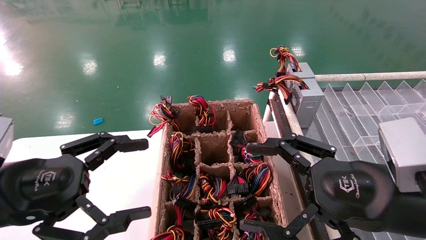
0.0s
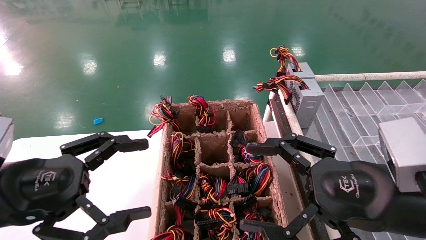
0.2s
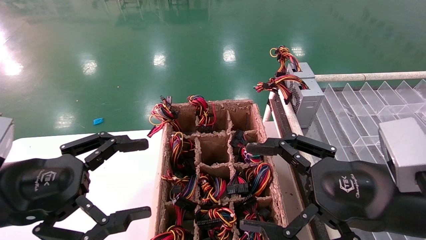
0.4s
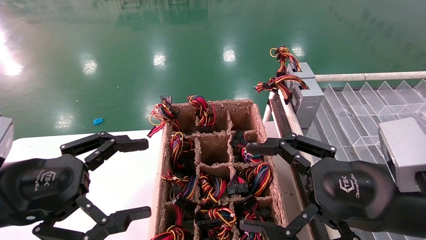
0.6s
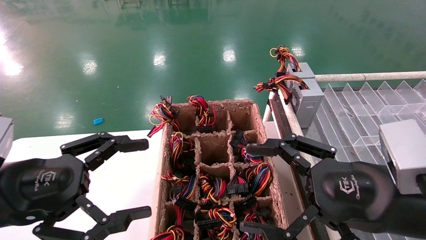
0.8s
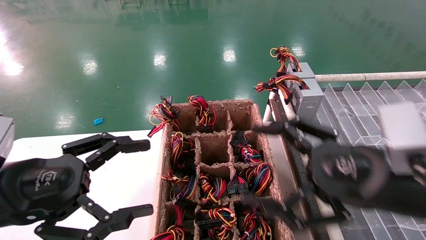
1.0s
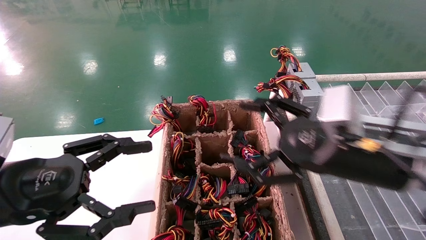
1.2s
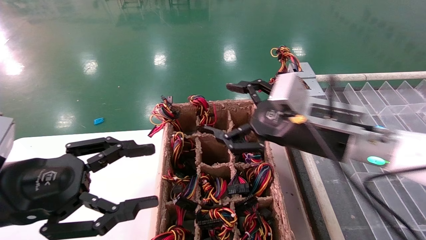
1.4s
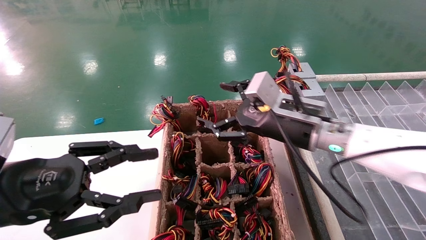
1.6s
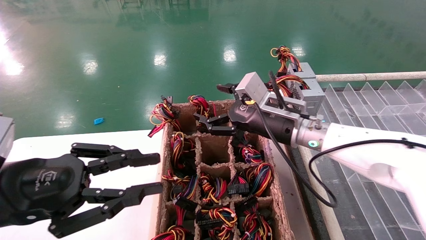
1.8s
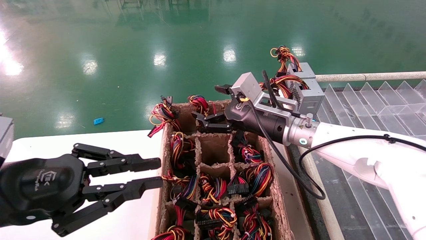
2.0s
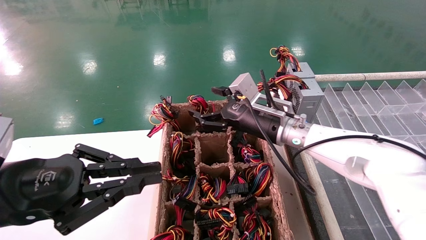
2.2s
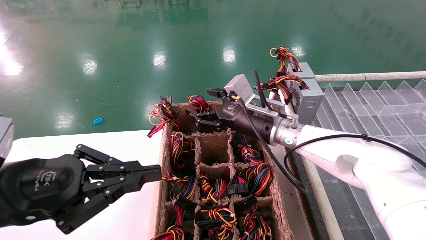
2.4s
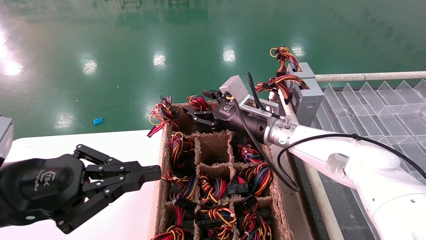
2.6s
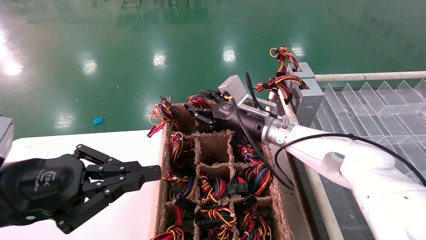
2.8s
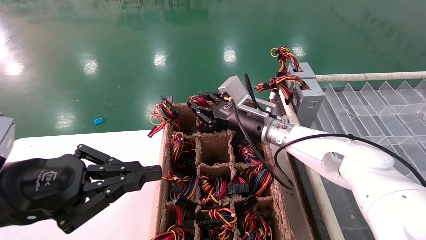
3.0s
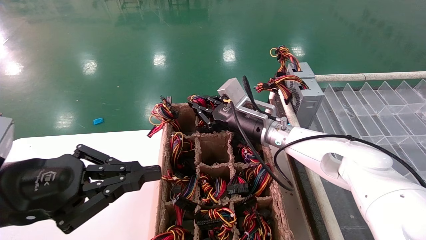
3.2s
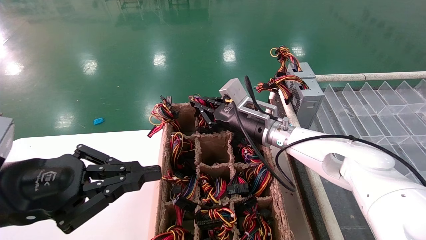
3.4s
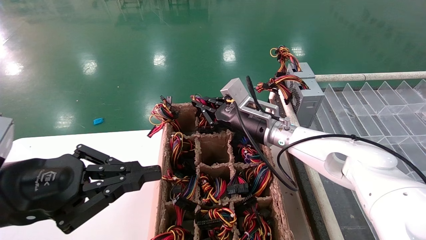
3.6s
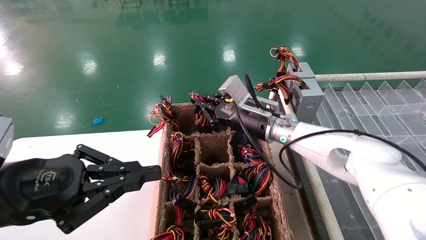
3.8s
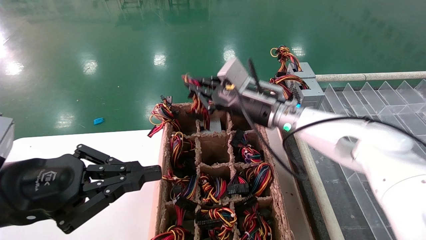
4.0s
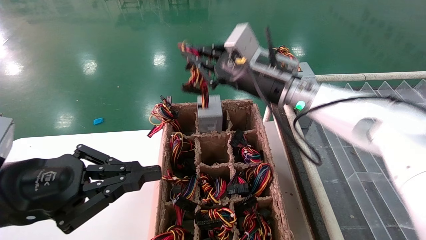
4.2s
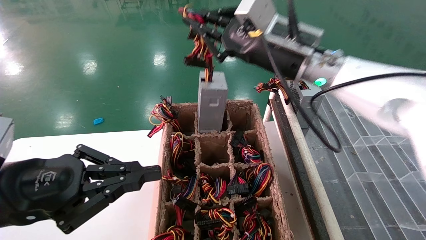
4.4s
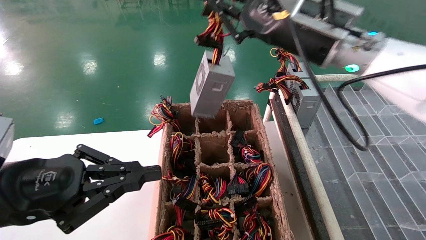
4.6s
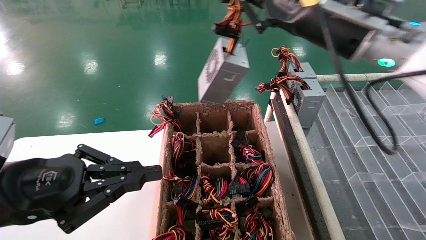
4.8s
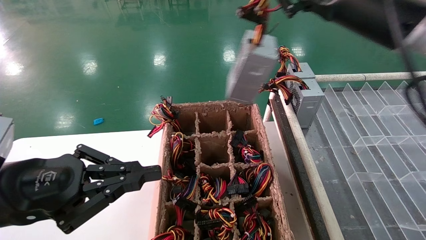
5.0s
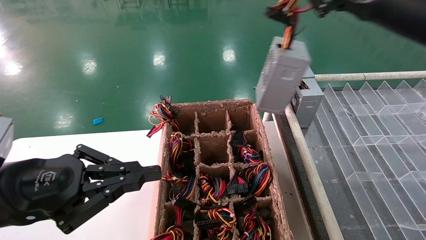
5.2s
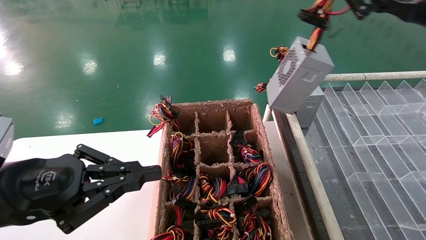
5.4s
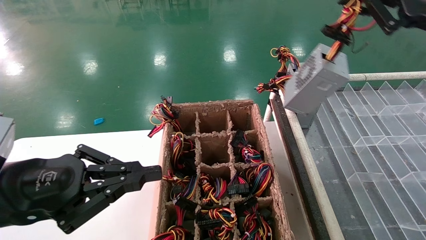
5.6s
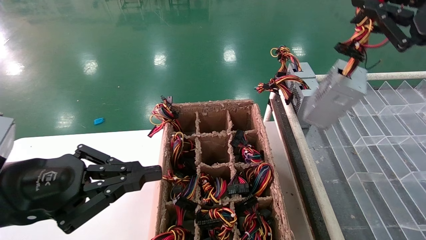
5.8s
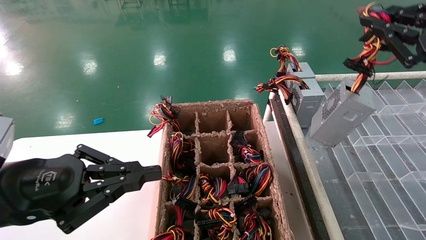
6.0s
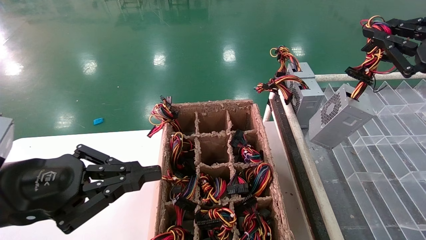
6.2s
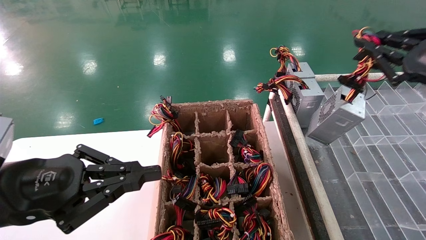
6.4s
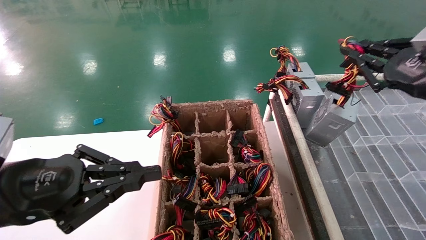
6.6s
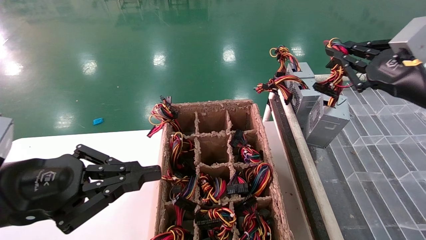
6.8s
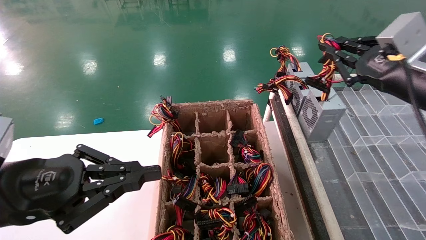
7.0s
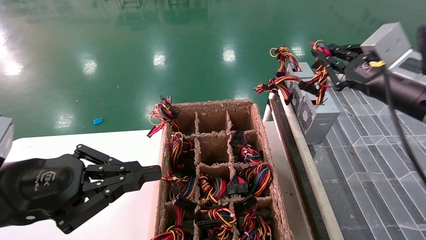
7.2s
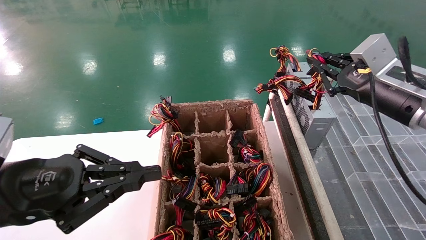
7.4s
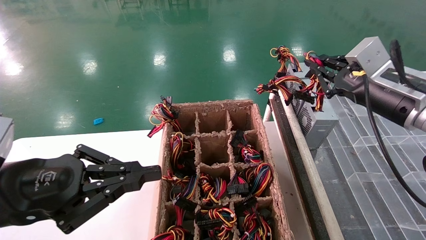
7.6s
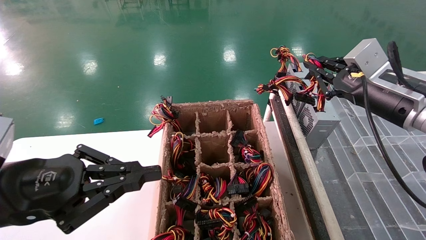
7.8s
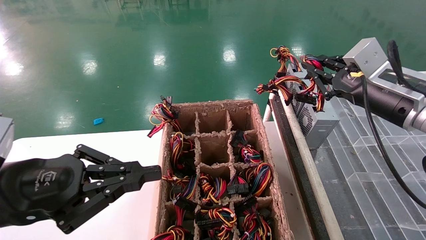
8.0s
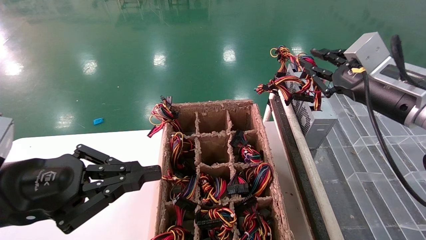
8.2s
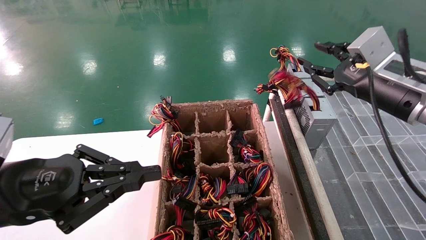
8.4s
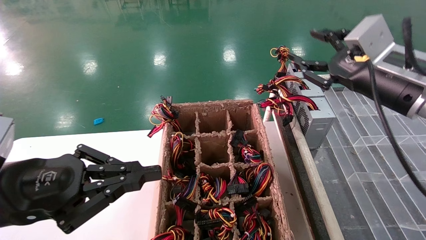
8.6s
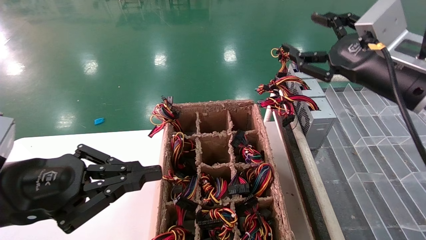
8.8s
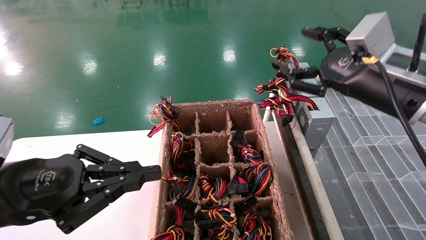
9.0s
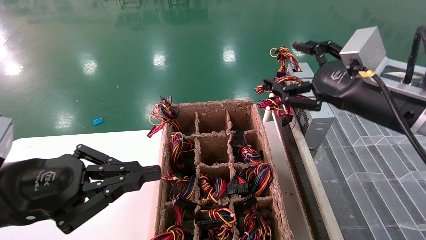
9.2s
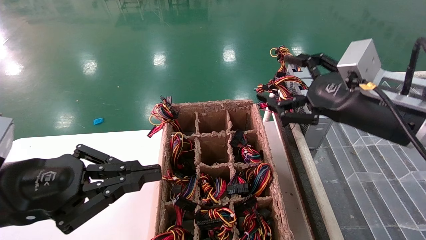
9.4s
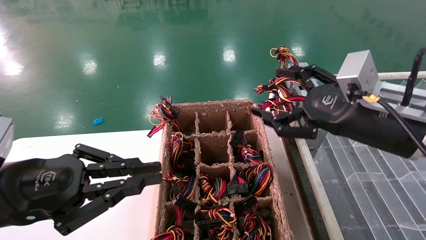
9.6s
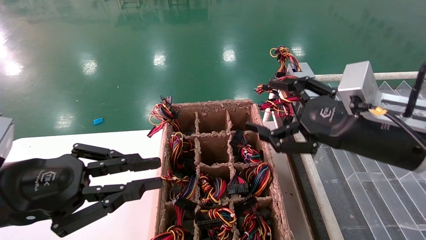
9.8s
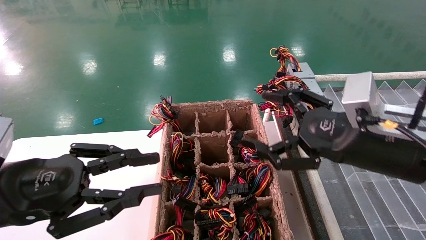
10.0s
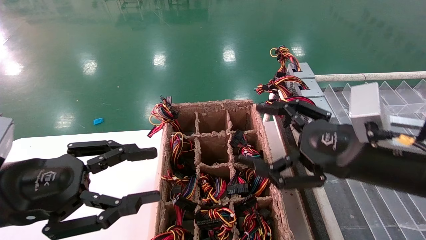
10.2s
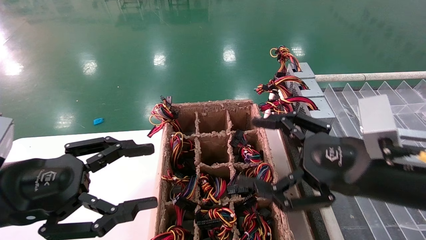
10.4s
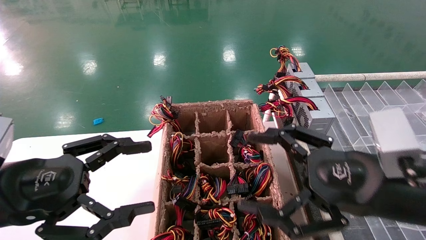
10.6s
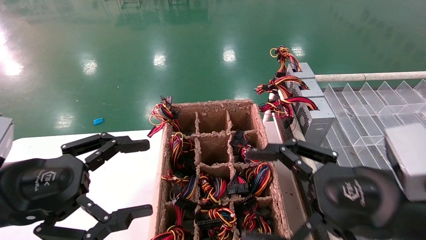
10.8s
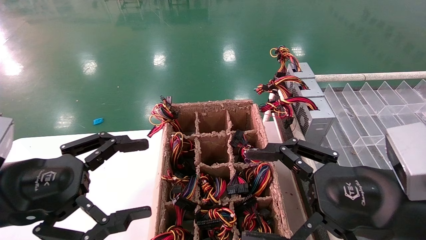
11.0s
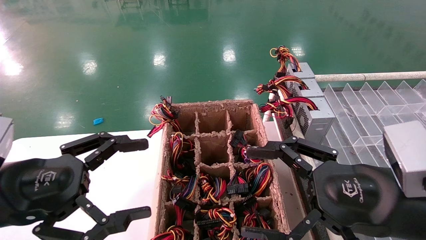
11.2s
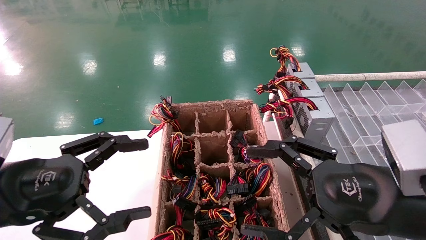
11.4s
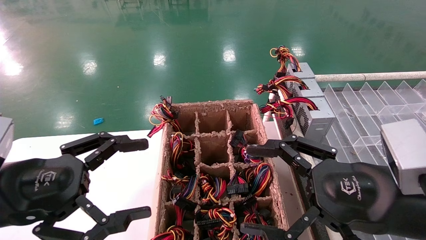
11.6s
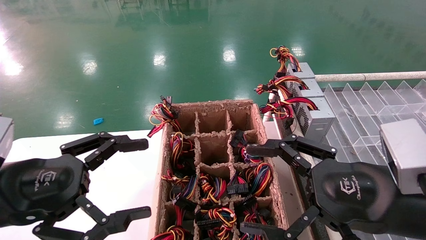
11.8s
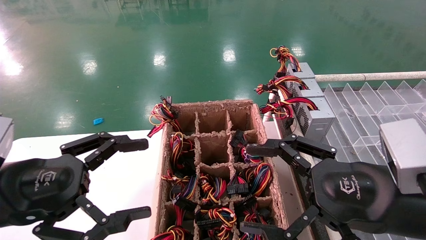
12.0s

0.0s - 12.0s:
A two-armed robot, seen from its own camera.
Step, 1.4s - 3.6s: Grab the main unit power supply from the containment box.
Step, 3.8s - 8.4s: Place the main unit power supply in the designated area.
0.0s - 1.6s: The left gripper closes. Meanwhile the right gripper shifts roughly 20 cm forward and to the left.
1.6s - 3.0s: The right gripper moves forward and to the left, approximately 10 cm, and closes up. Meanwhile the left gripper closes its fingers.
3.0s - 4.4s: The right gripper goes some 20 cm upward and backward, and closes up.
4.4s - 6.0s: The right gripper shifts approximately 25 cm to the right and backward.
6.0s - 7.6s: The right gripper heads forward, downward and to the left, covering roughly 15 cm.
7.6s - 9.0s: The right gripper moves some 5 cm, and opens up.
9.0s - 10.4s: The right gripper goes roughly 10 cm backward and downward; the left gripper opens.
10.4s - 12.0s: The left gripper opens up.

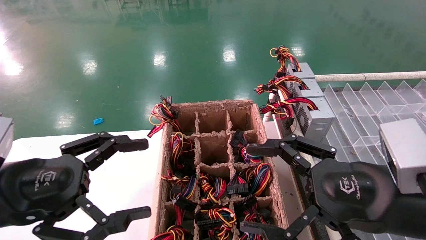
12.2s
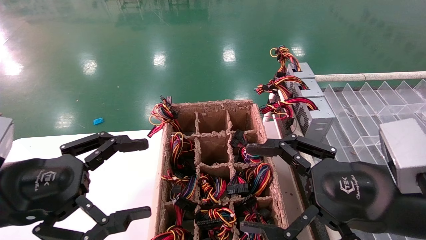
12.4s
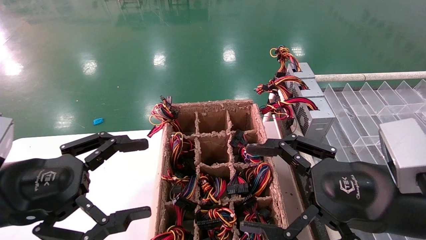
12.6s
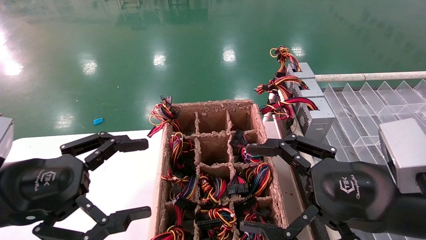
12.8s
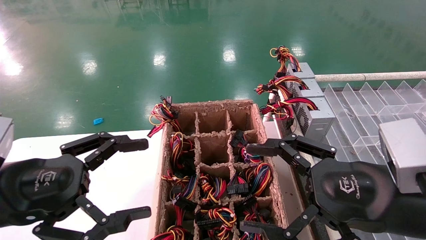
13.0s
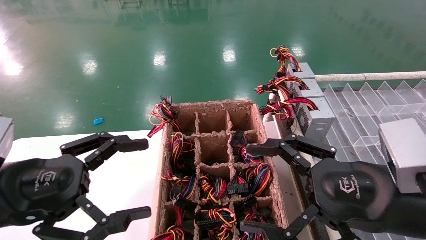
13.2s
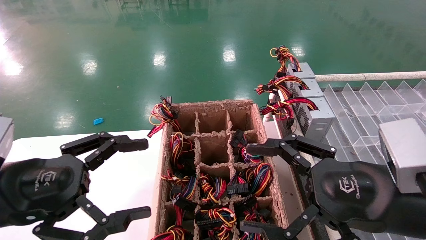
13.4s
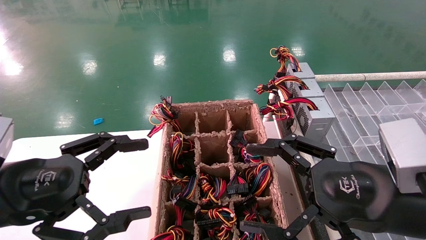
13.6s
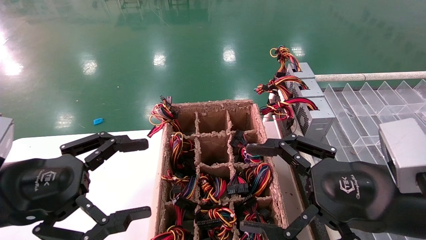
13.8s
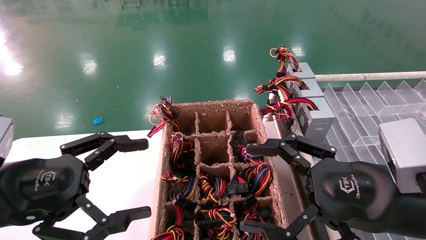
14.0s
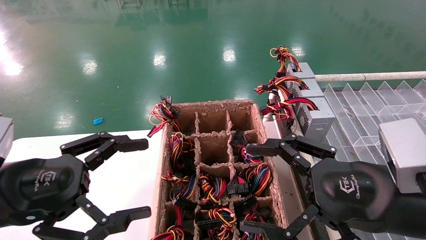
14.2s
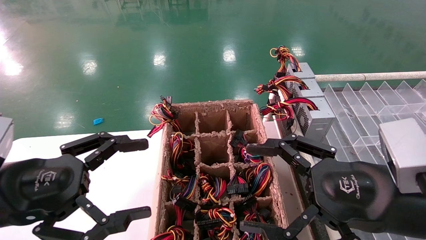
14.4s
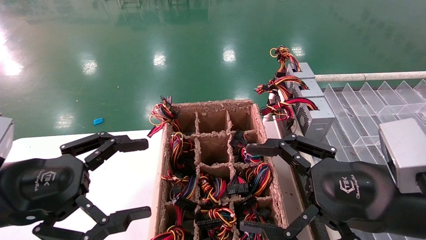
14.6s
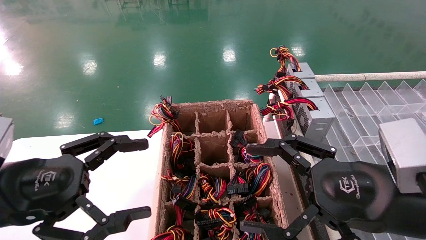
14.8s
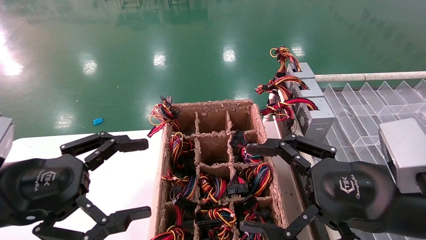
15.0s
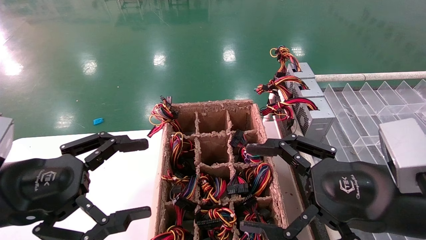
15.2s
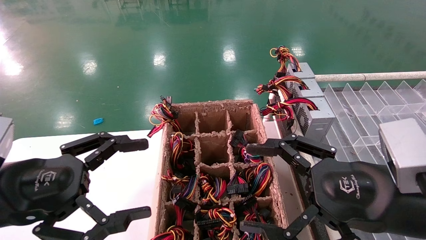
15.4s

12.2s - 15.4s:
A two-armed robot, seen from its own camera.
12.2s - 15.4s: The two grippers keep their place.

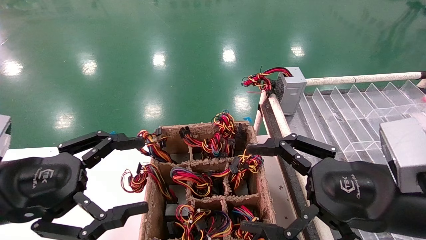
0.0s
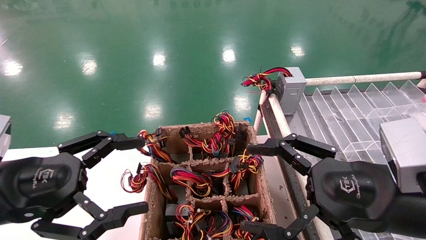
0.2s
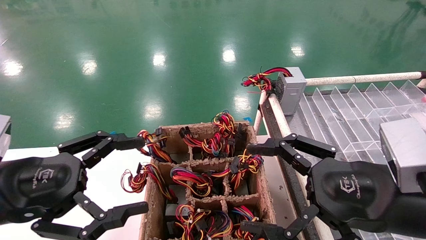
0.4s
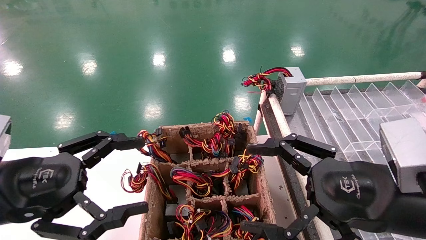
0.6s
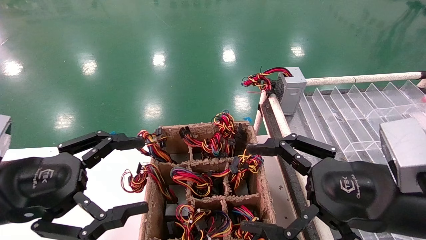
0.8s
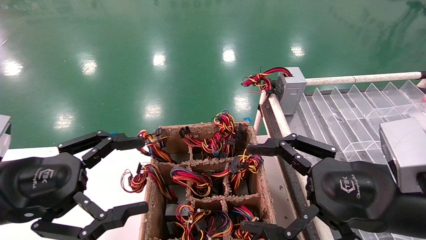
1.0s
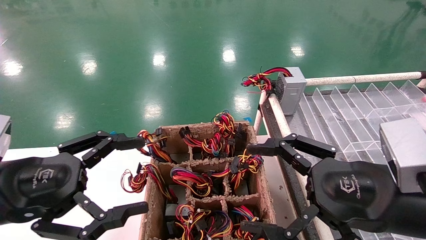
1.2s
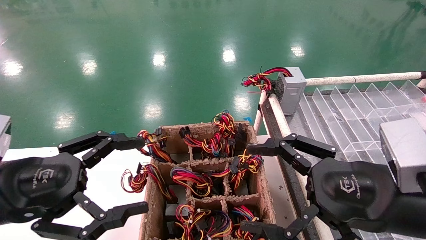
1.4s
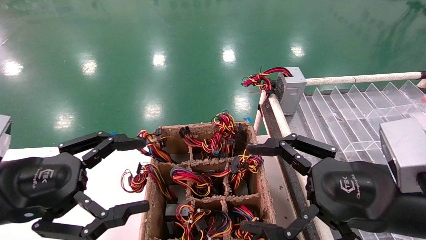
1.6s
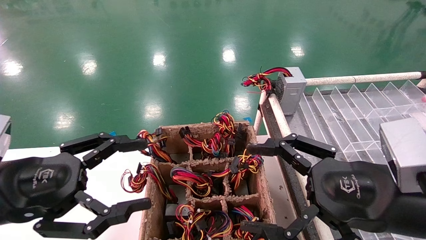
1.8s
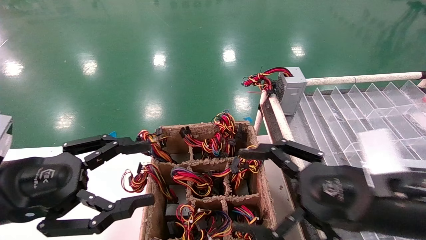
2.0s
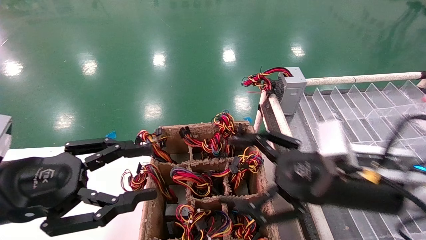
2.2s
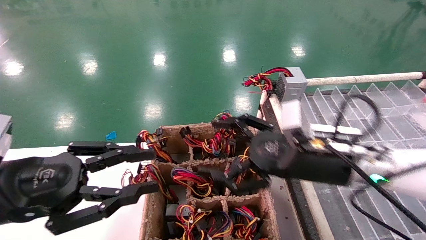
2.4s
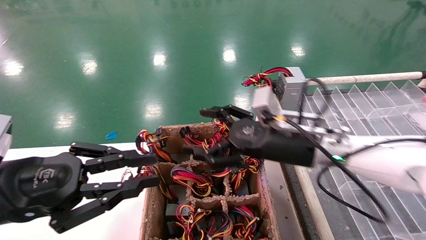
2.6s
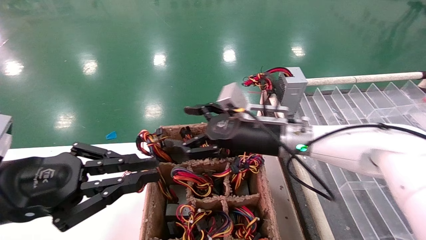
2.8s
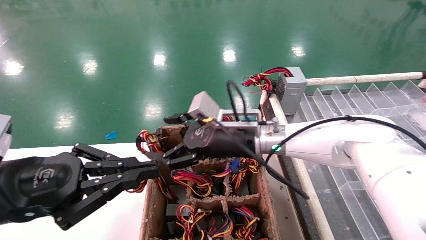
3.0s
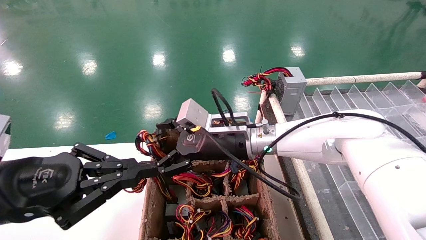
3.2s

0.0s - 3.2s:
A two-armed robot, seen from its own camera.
0.0s - 1.6s: Neither gripper changes place.
1.6s - 3.2s: The left gripper closes. The right gripper shifts some 25 cm forward and to the left.
